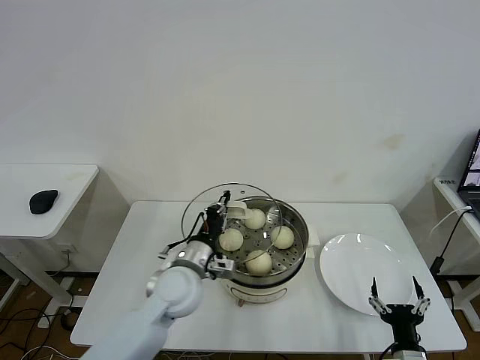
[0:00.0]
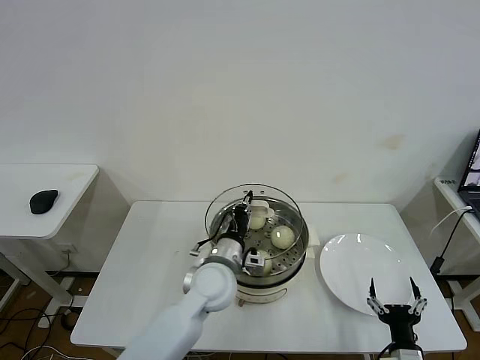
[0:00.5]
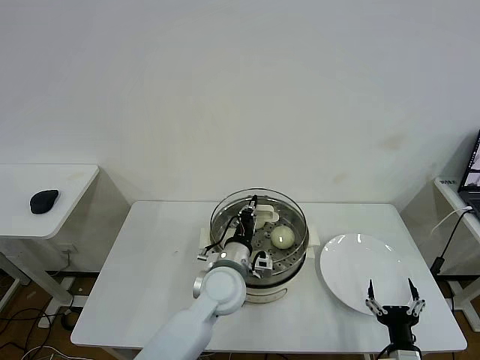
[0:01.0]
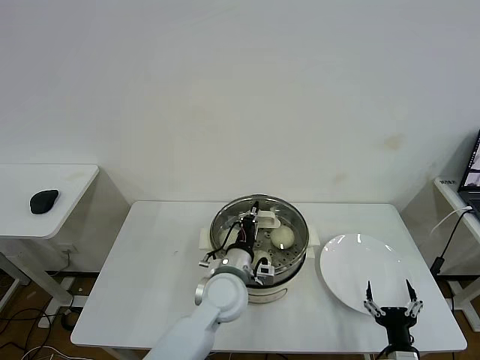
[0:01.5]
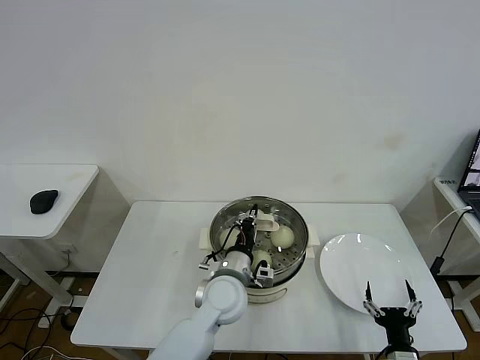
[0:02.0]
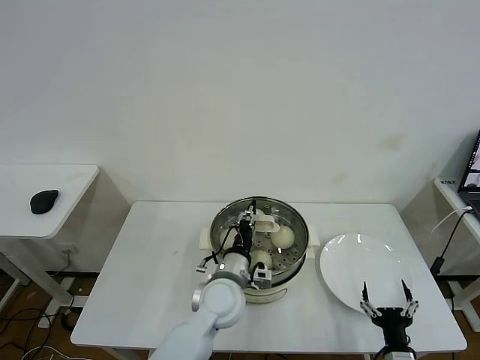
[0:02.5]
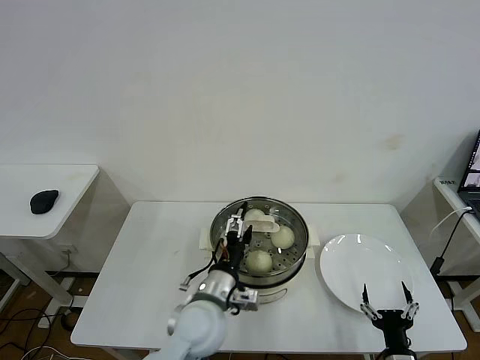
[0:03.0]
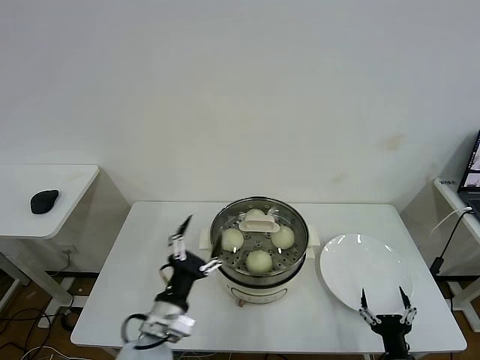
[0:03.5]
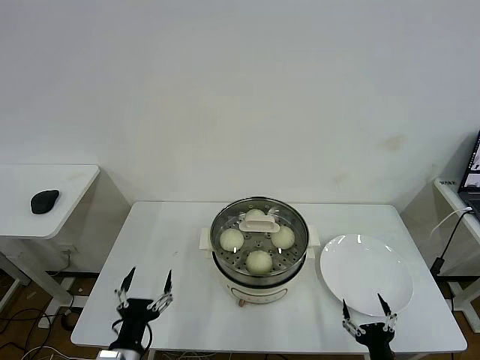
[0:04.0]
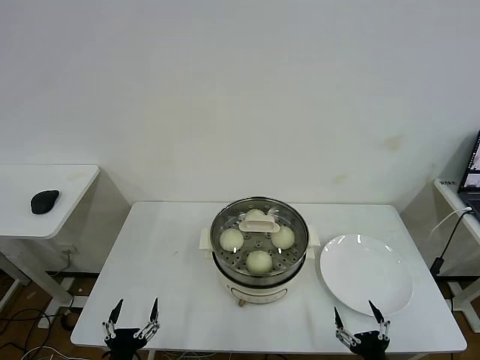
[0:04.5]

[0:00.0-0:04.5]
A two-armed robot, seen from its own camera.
Task of the whole recording: take steamed baozi put them in steamer then cover it.
Step, 0:00.0 to 0:02.5: Place the pot lid on the steamer with left gripper.
0:00.0 to 0:02.0: The left gripper goes some 10 cm to the right.
0:02.0 to 0:04.5: The right gripper moves approximately 5 cm; the left gripper travels backward, to the left and downward by roughly 35 cm, and opens.

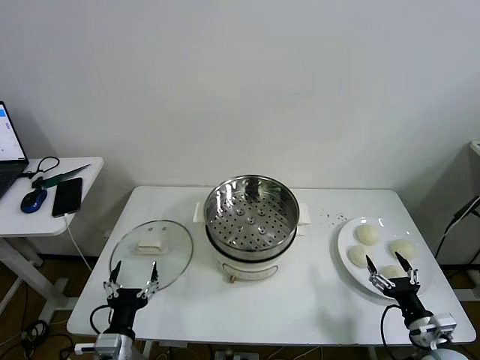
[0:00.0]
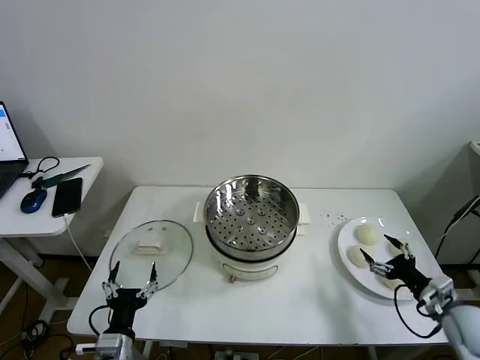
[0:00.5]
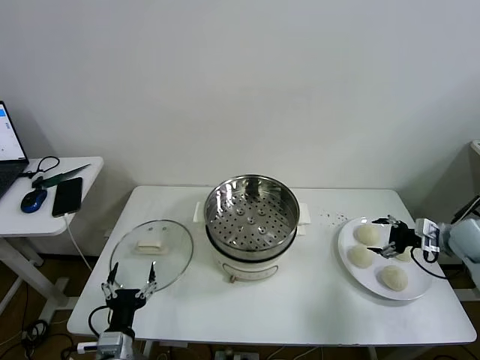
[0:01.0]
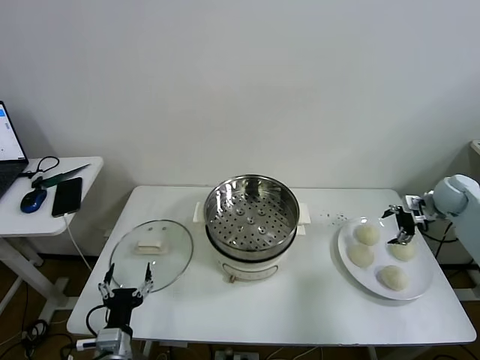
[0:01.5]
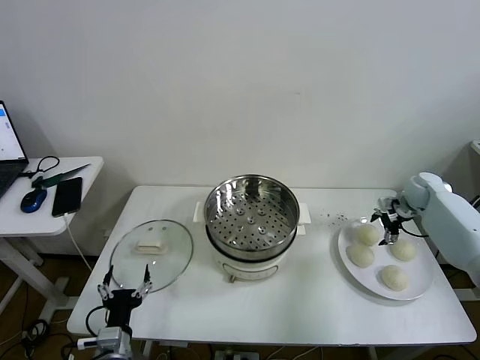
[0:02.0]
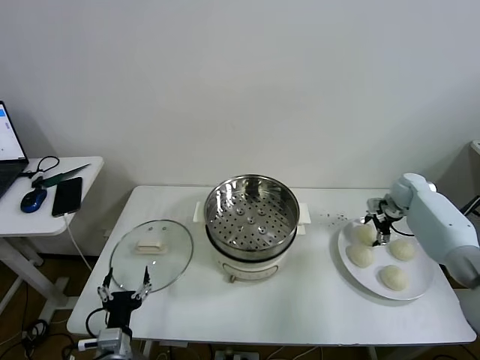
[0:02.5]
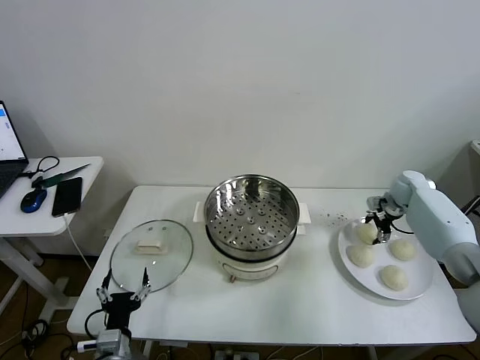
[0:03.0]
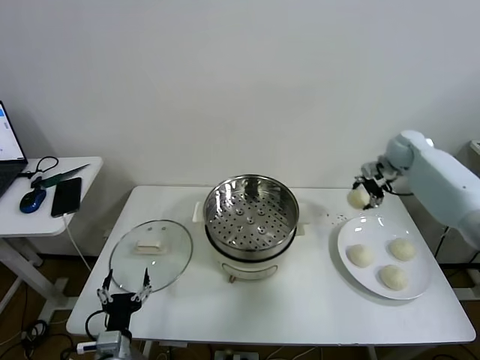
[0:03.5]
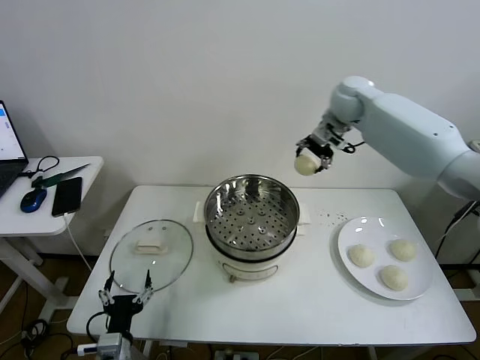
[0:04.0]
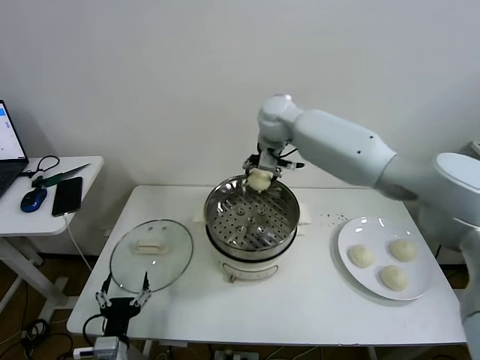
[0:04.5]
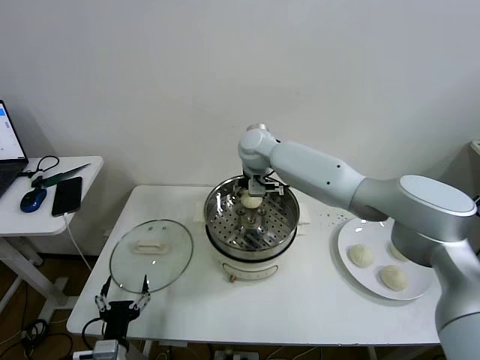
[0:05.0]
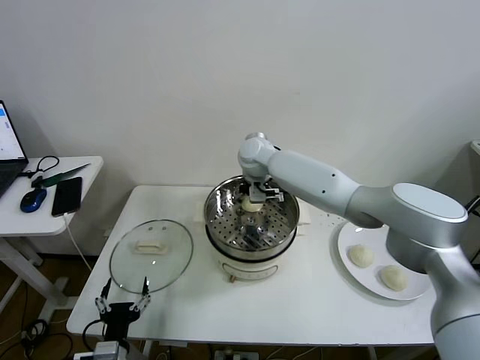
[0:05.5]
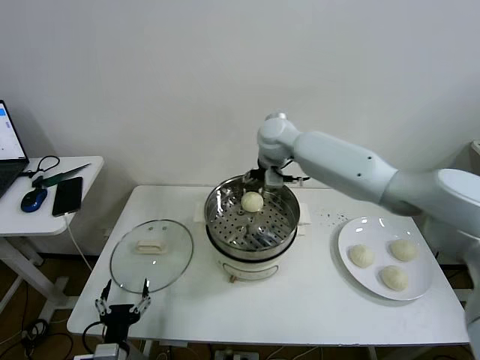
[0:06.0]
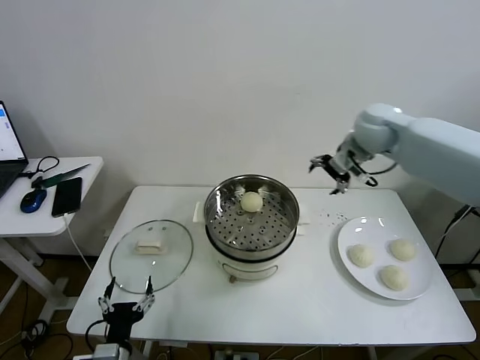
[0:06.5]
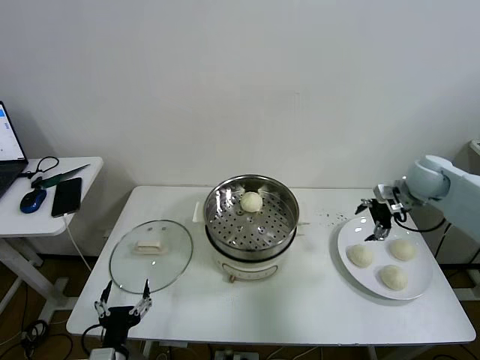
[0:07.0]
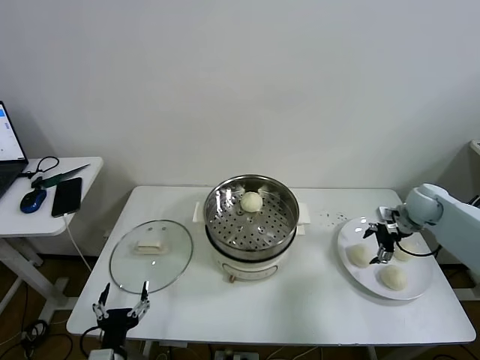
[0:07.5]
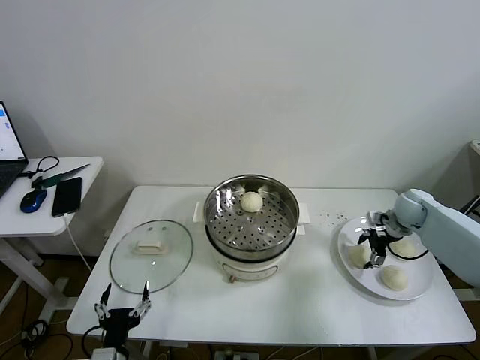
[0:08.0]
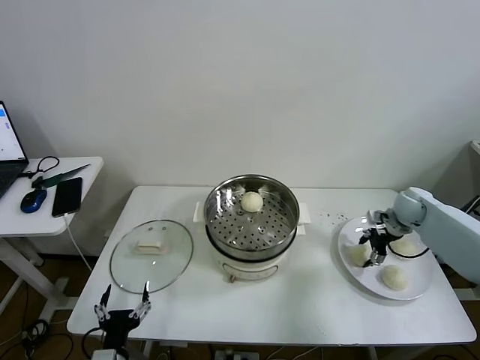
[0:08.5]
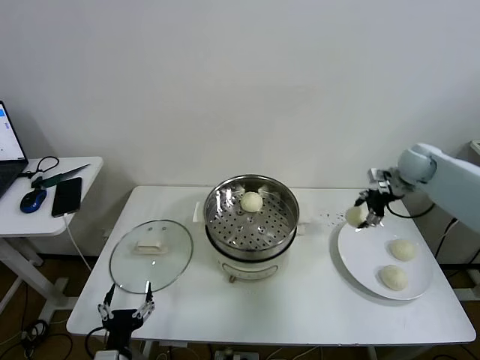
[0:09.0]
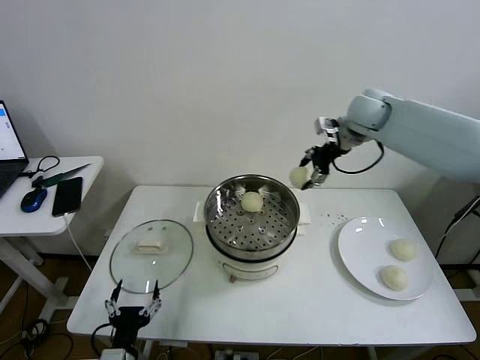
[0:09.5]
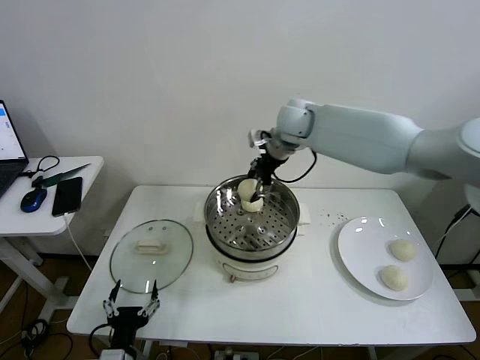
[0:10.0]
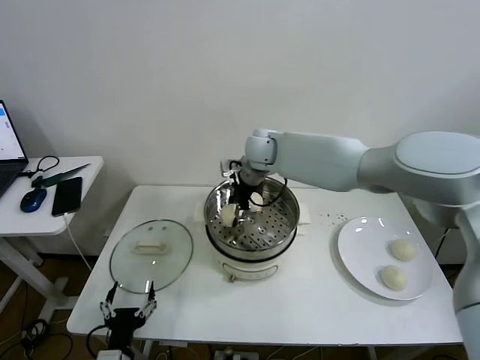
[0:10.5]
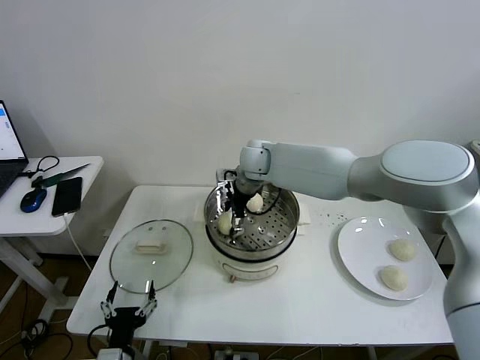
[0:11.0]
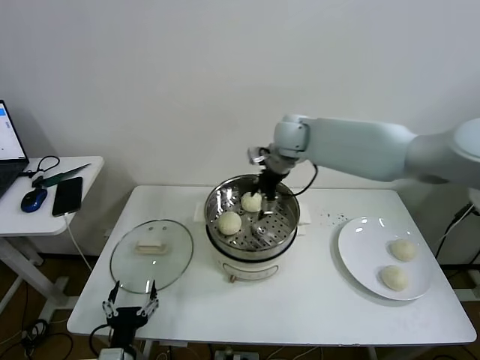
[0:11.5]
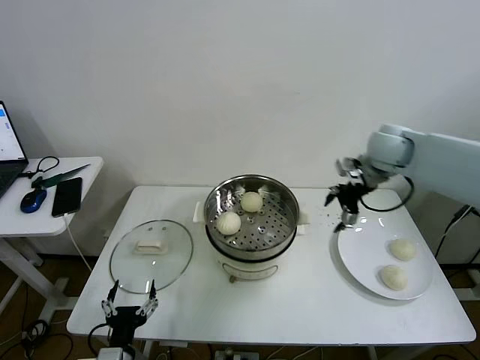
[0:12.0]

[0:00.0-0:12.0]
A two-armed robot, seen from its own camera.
Task of the whole recording: take steamed baozi put them in steamer then cover it.
Step, 0:00.0 to 0:02.5: Grasp the baozi in the plate with right gripper.
Step, 0:03.0 to 0:05.5: Place the baozi on the steamer with right gripper.
Step, 0:06.0 to 0:08.0: Grasp the baozi in the plate with right gripper.
Step, 0:08.5 to 0:11.0: Place the baozi on the steamer with right gripper.
0:02.0 to 0:04.0: The right gripper shifts roughly 35 cm to the left and upward.
0:04.0 to 0:06.0: The right gripper heads to the left and downward, covering about 15 cm.
0:06.0 to 0:08.0: The right gripper heads to the right and downward, covering about 40 cm.
0:08.0 to 0:10.0: The right gripper moves to the left and upward, roughly 40 cm.
0:10.0 to 0:12.0: The right gripper is displaced to the right by some 20 cm.

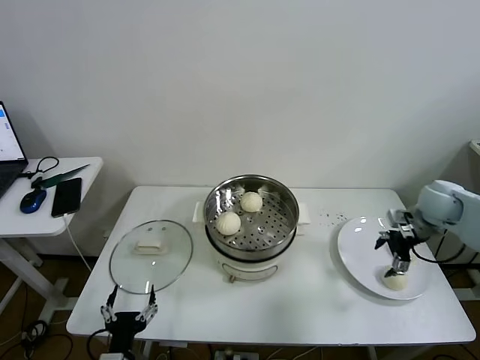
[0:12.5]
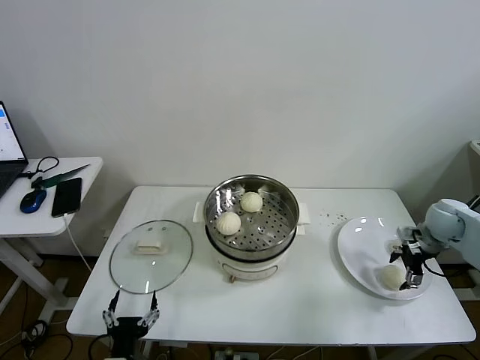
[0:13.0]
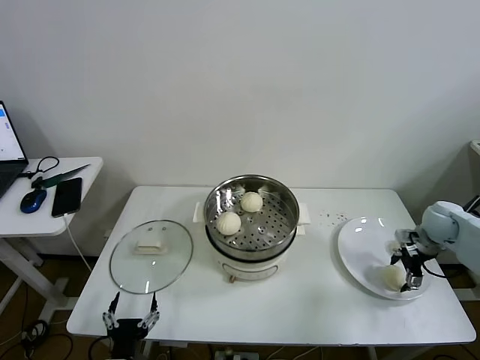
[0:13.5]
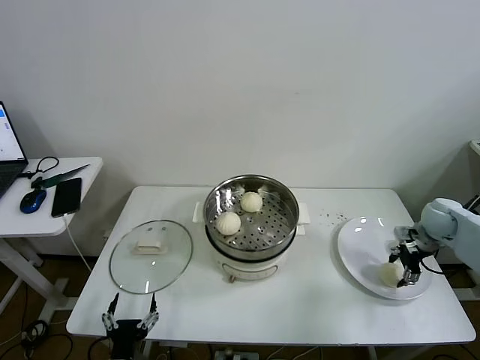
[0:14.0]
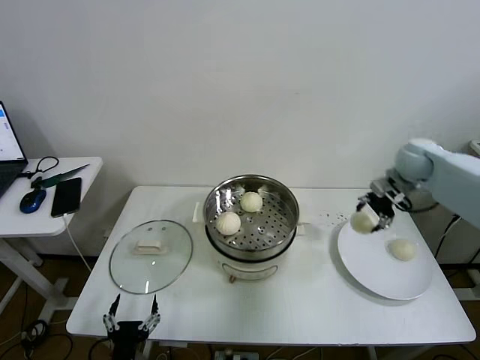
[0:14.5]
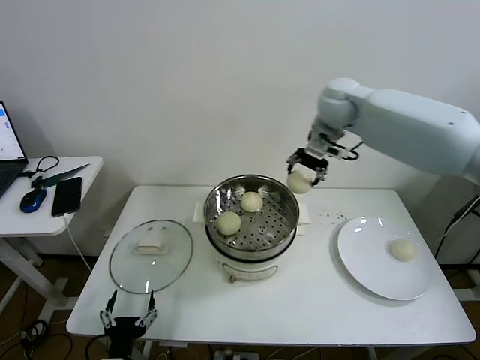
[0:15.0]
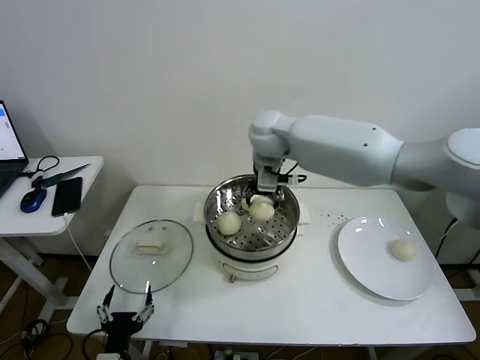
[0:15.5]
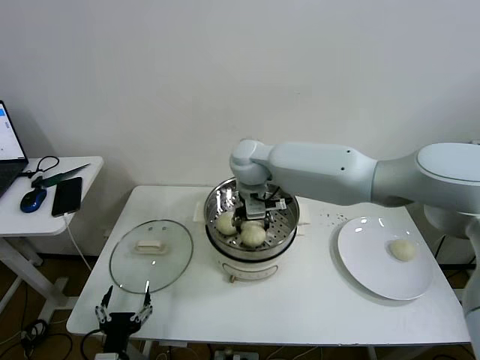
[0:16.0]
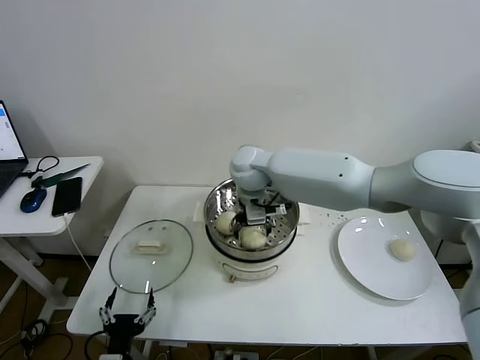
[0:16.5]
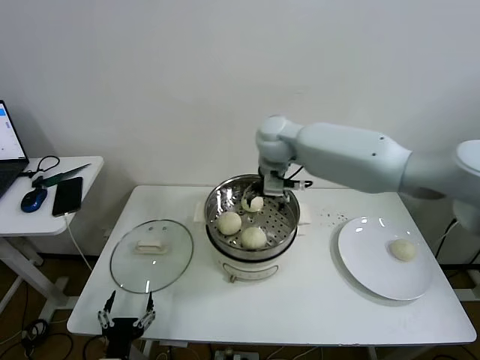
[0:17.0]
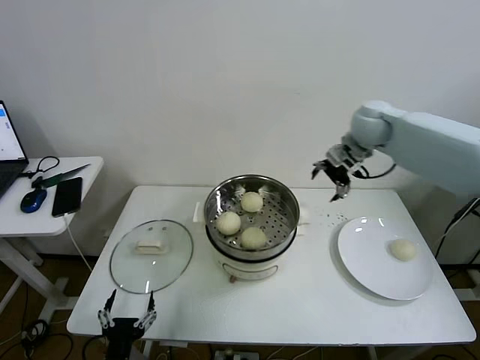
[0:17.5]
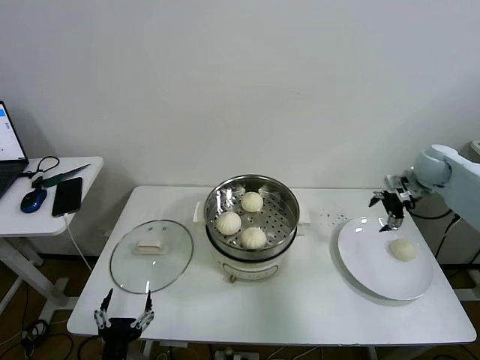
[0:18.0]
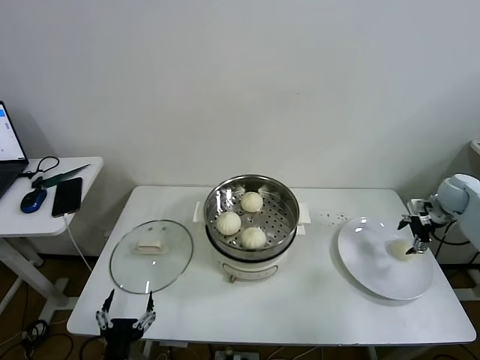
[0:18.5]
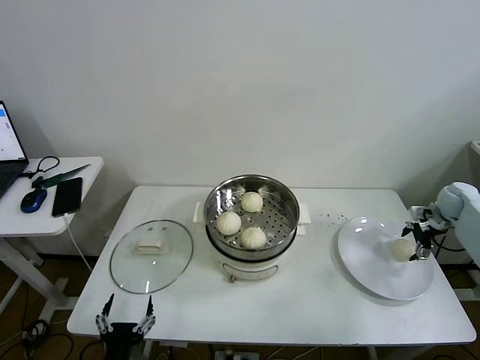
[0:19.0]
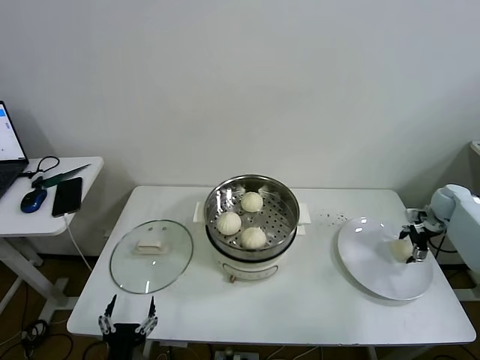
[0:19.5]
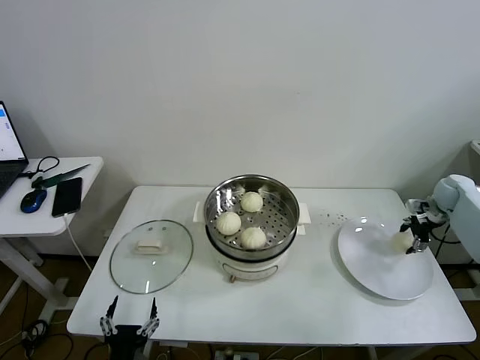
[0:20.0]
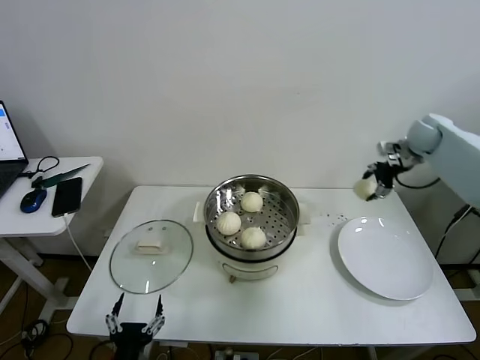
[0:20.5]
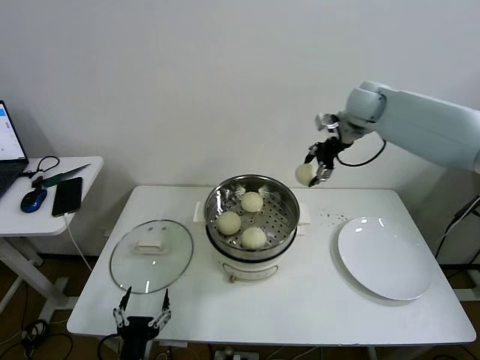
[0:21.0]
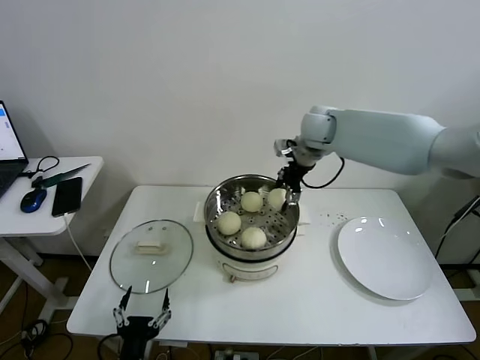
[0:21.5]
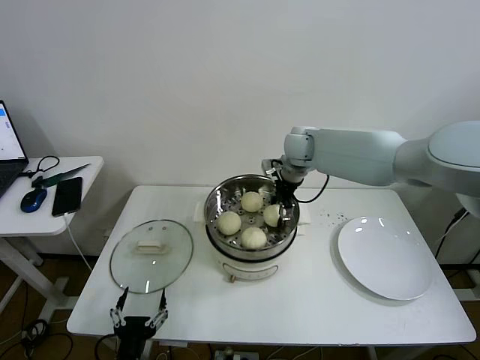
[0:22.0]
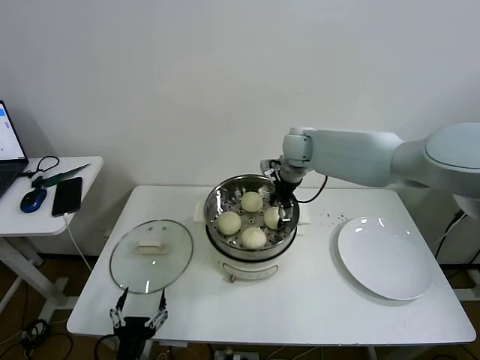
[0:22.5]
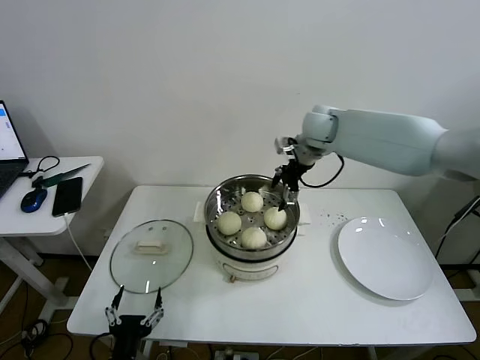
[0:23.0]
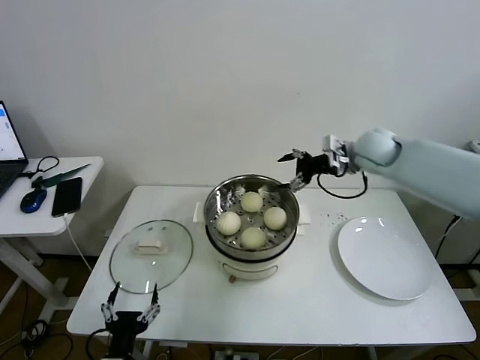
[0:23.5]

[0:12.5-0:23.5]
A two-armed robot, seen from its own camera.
Task of the whole recording: take steamed baozi put them in steamer then cover it.
Step, 0:14.0 to 0:16.0: Place the baozi on the steamer with right gripper.
Step, 0:17.0 to 0:19.5: Grasp the baozi in the plate with right gripper.
Step, 0:20.0 to 0:22.0: Place the baozi on the steamer with right gripper.
0:12.5 to 0:14.5: The right gripper heads forward and upward, covering approximately 10 cm.
0:14.5 to 0:16.0: The right gripper is displaced to the left by approximately 40 cm.
0:16.0 to 0:18.0: The right gripper heads to the right, covering about 40 cm.
0:18.0 to 0:20.0: The right gripper goes approximately 15 cm to the right and downward.
0:20.0 to 0:21.5: The right gripper moves to the left and upward, approximately 40 cm.
0:21.5 to 0:23.5: The right gripper goes some 10 cm to the right.
